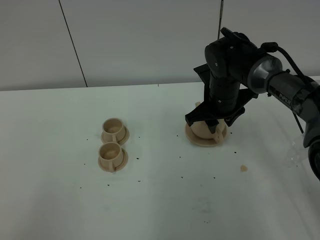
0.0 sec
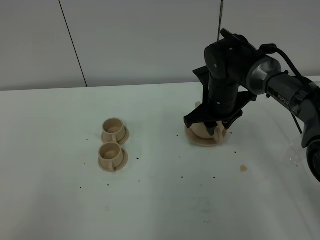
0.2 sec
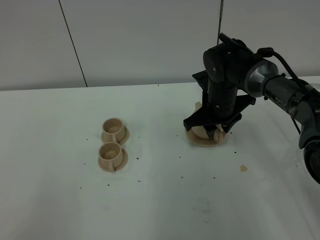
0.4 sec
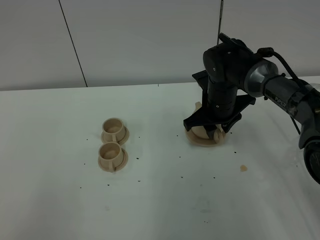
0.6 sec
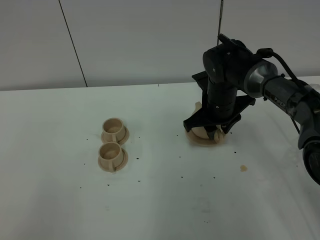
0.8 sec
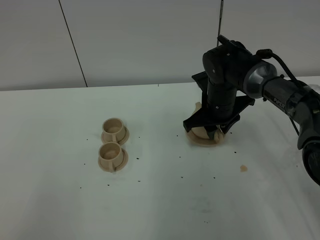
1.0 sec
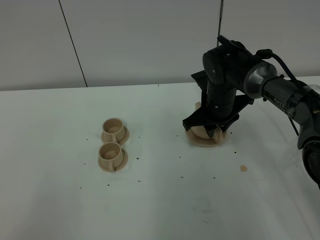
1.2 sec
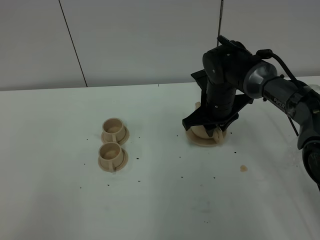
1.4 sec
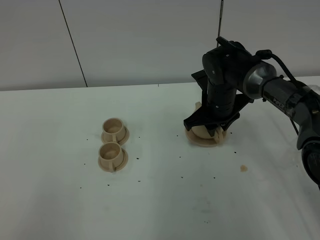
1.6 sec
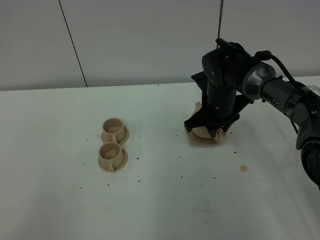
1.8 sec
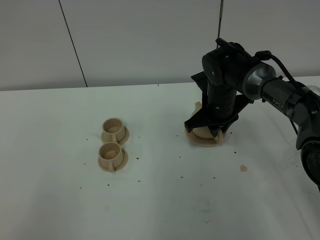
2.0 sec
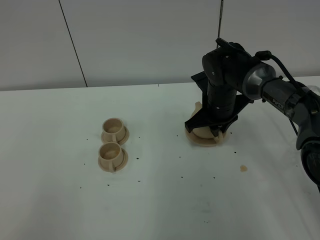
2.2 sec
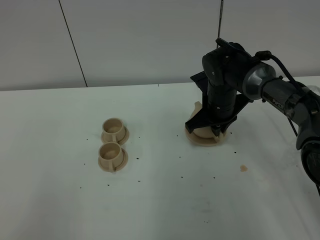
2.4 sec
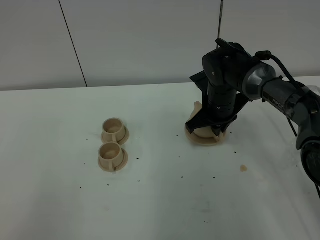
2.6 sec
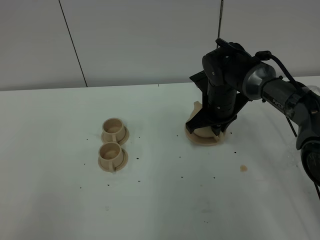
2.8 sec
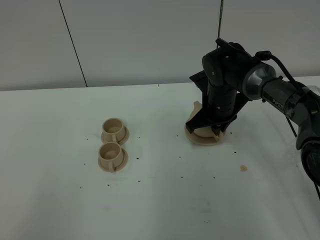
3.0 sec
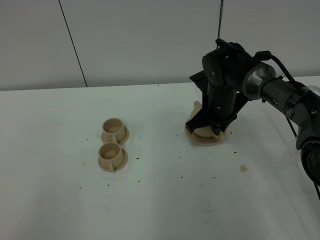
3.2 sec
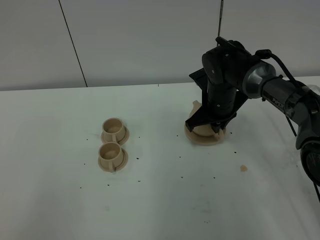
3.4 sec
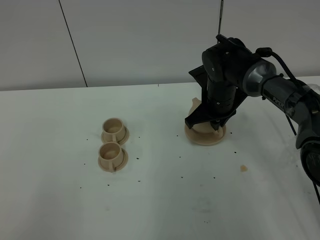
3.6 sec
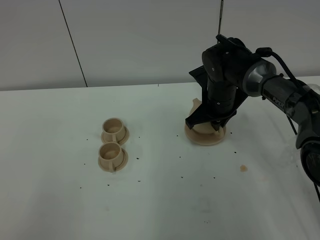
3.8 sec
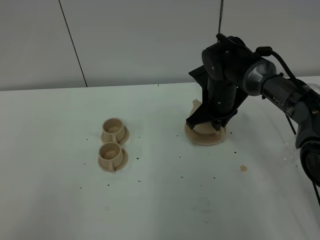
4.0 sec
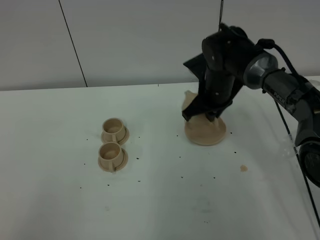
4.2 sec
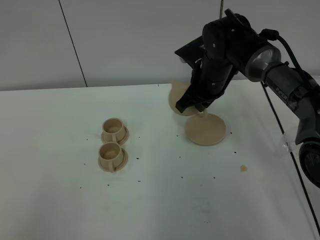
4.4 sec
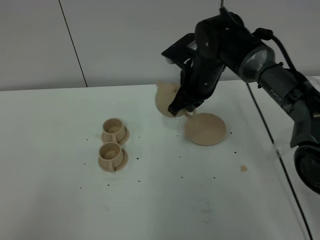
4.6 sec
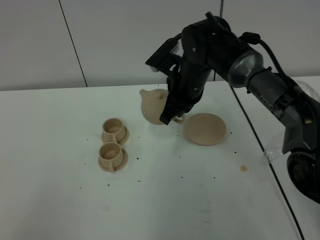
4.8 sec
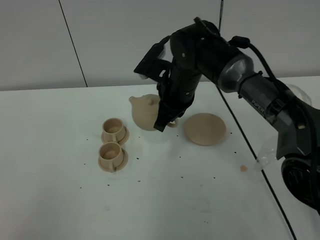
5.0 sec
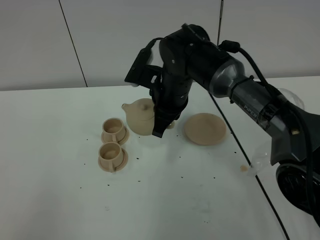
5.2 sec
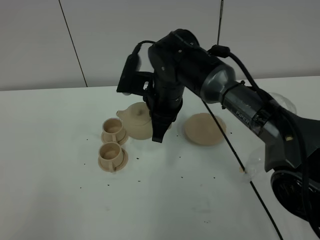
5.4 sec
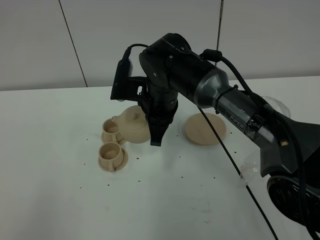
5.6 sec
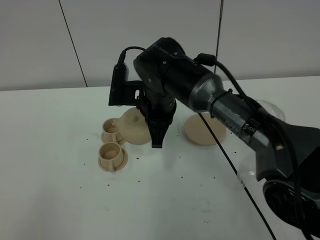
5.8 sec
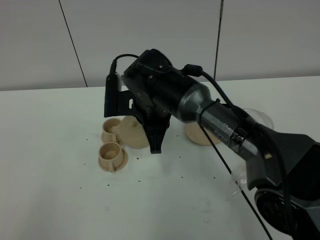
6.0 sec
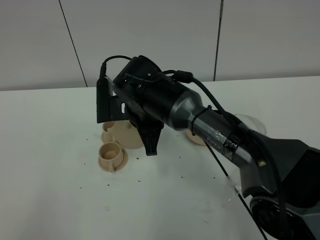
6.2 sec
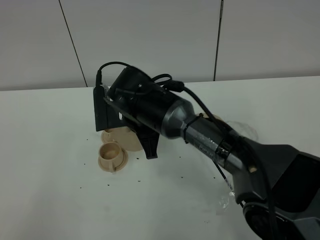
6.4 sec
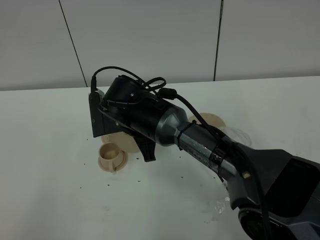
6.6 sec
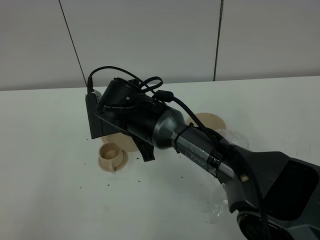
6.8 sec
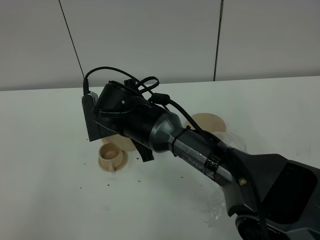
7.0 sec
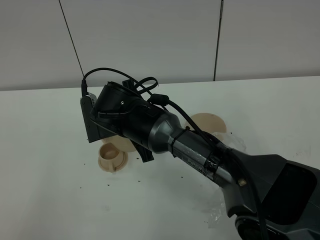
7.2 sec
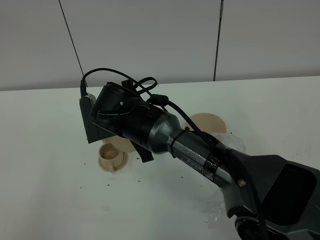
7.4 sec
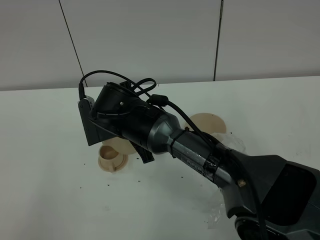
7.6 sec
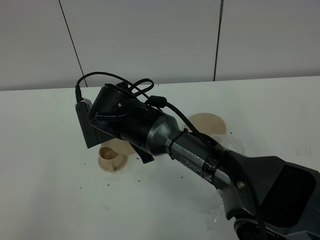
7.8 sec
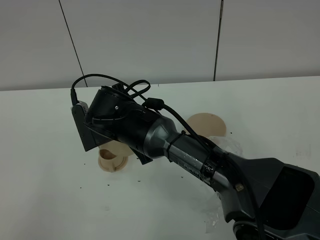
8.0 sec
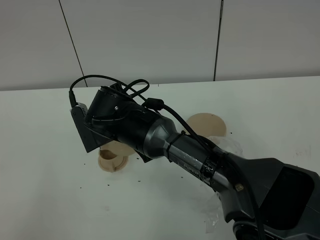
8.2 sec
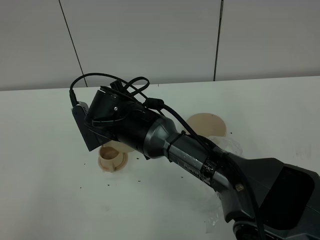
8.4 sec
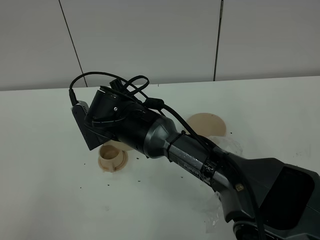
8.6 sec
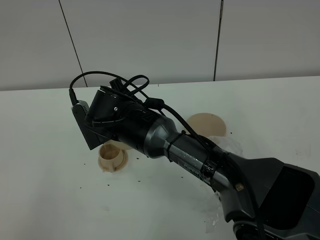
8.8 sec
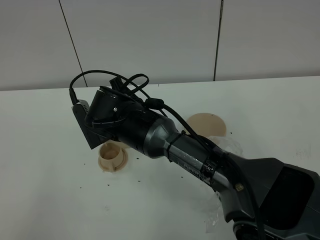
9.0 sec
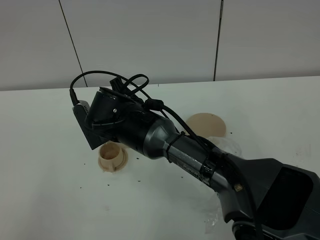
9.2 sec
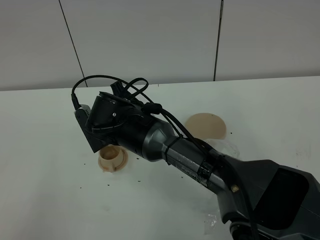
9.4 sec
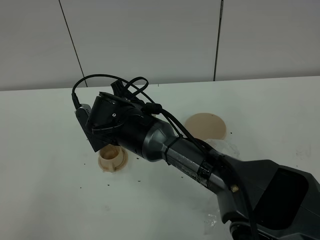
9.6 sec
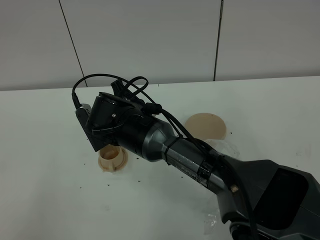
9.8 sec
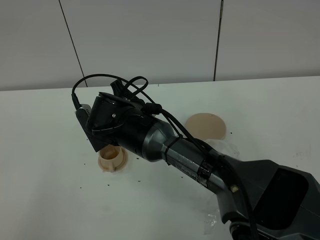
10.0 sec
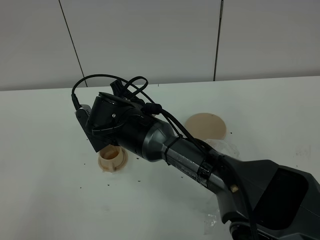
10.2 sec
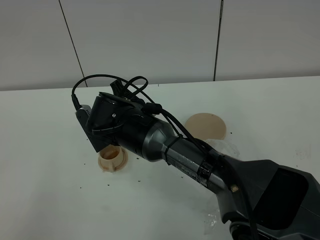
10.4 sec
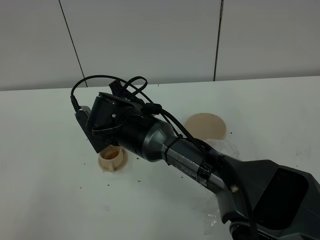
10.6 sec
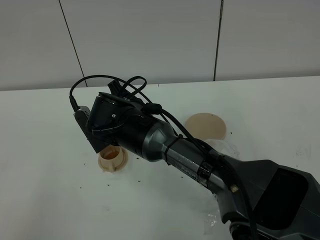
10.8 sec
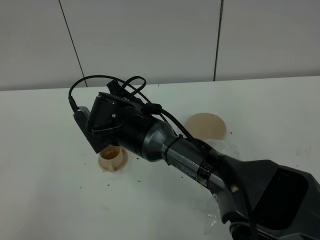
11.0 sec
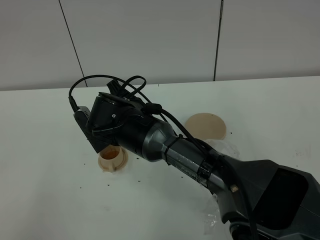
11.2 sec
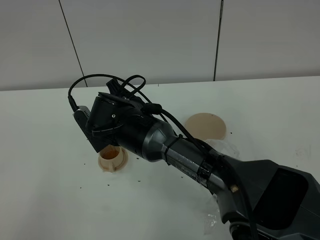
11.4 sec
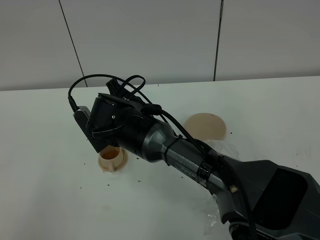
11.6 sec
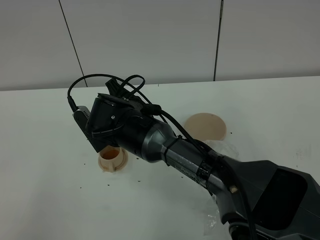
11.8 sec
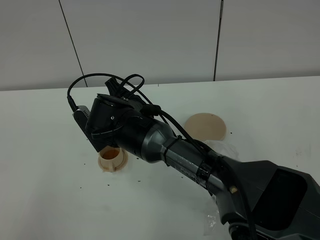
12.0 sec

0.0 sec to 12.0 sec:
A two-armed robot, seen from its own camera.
Task of the whole recording: grasp the brown teapot and pour the tea into the two brown teacups one by one, put the brown teapot back in its original place.
Step, 0.0 sec to 3.6 sec: Pick up the teapot with the right gripper.
0.0 sec to 1.6 sec: There are only small adjustments of the grippers.
1.6 sec to 3.0 sec: The right gripper closes.
3.0 sec to 4.4 sec: The right gripper is displaced upward by about 5 cm.
4.4 sec to 6.0 sec: The right gripper moves to the left and backward, about 15 cm.
7.6 sec to 9.0 sec: The grippers stay close to where they were, moving slightly.
9.0 sec to 10.4 sec: Both grippers stay put.
10.4 sec to 12.0 sec: The grippers make only small movements.

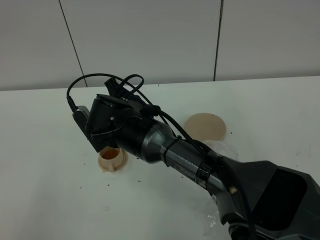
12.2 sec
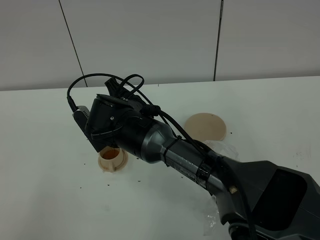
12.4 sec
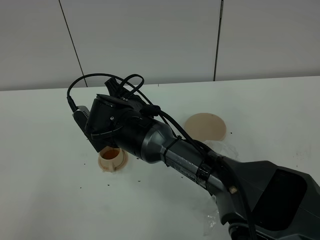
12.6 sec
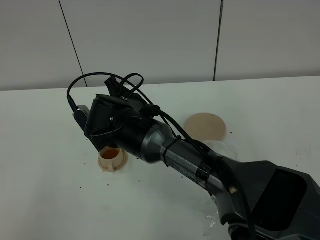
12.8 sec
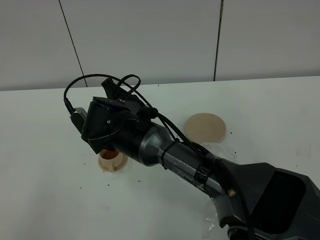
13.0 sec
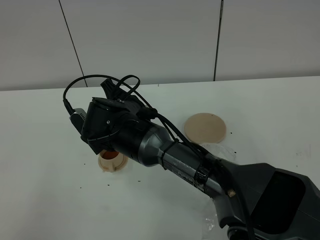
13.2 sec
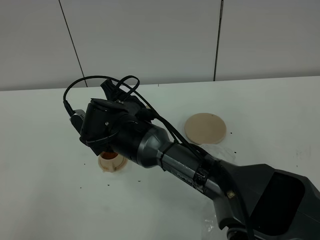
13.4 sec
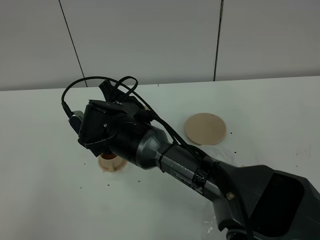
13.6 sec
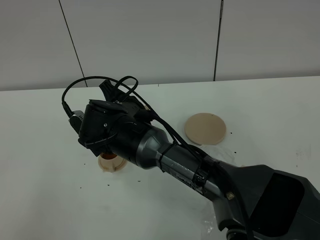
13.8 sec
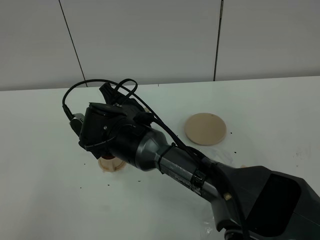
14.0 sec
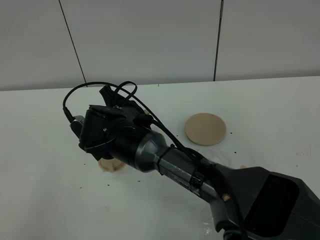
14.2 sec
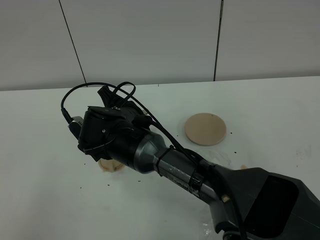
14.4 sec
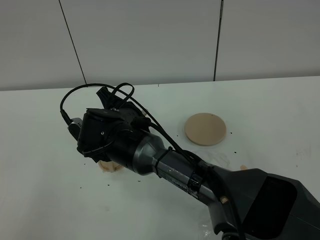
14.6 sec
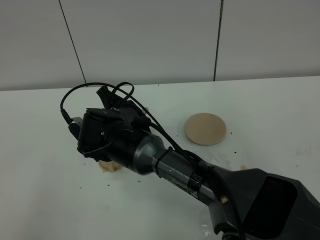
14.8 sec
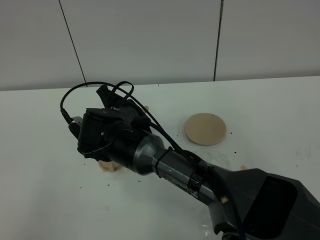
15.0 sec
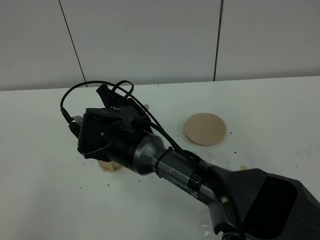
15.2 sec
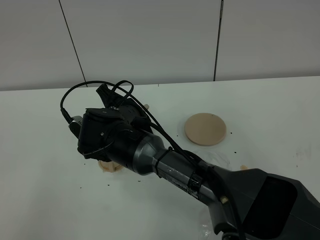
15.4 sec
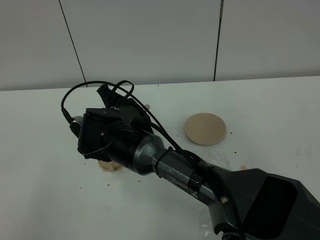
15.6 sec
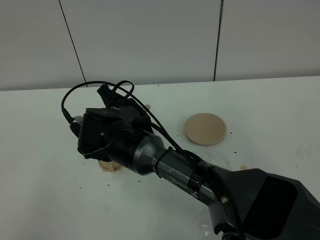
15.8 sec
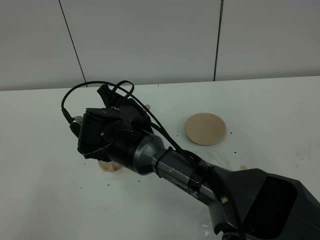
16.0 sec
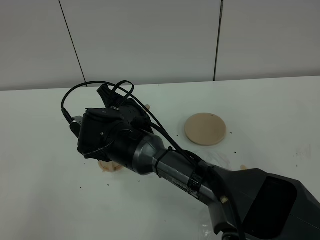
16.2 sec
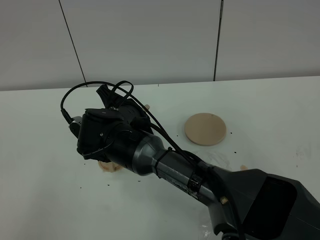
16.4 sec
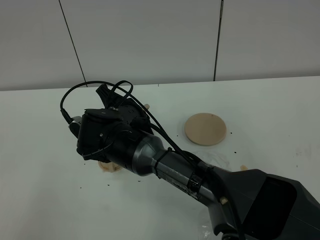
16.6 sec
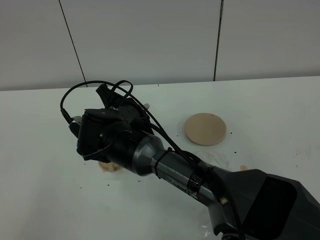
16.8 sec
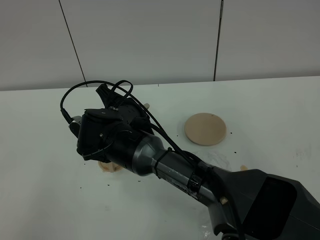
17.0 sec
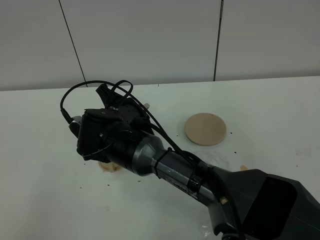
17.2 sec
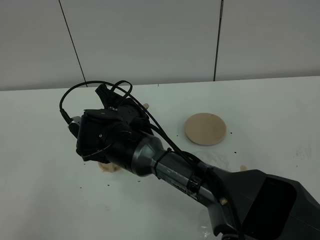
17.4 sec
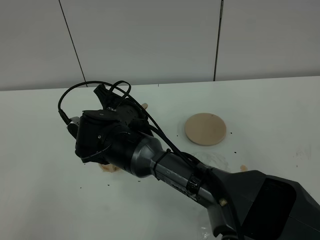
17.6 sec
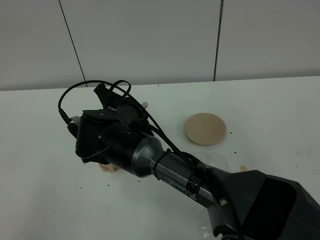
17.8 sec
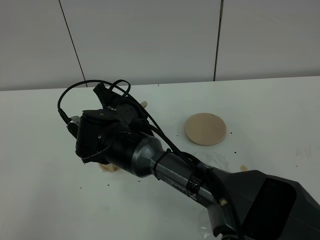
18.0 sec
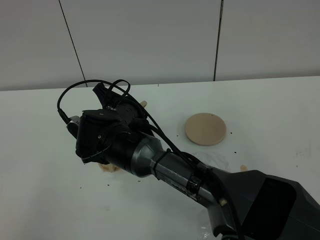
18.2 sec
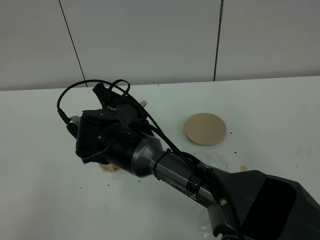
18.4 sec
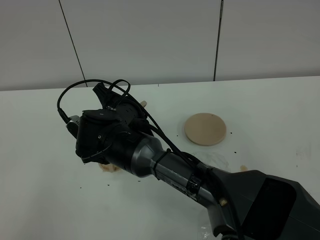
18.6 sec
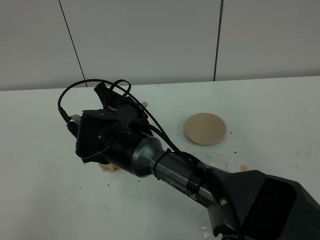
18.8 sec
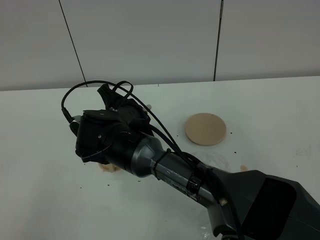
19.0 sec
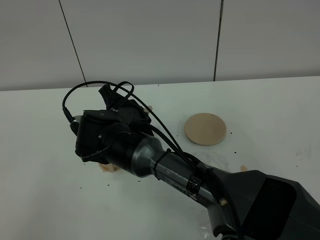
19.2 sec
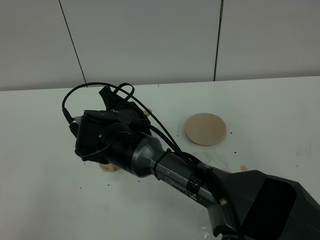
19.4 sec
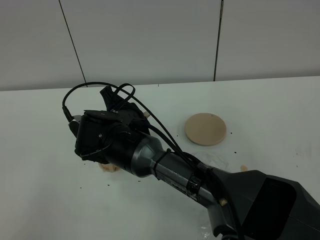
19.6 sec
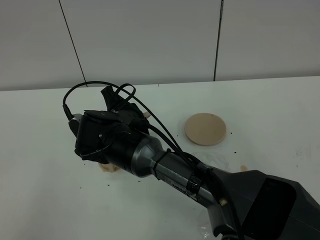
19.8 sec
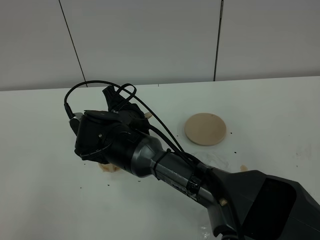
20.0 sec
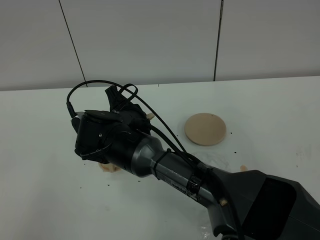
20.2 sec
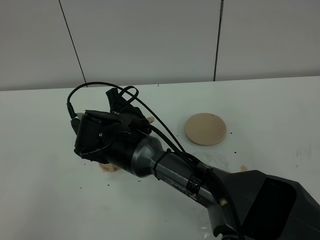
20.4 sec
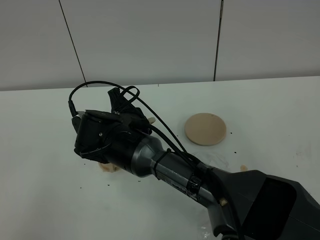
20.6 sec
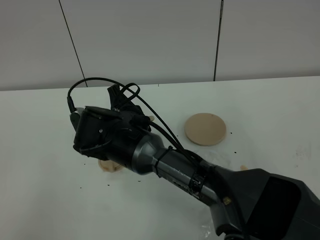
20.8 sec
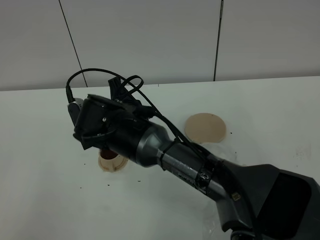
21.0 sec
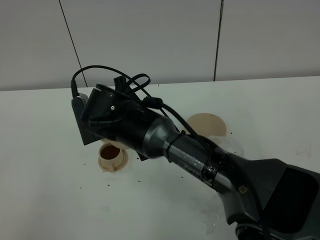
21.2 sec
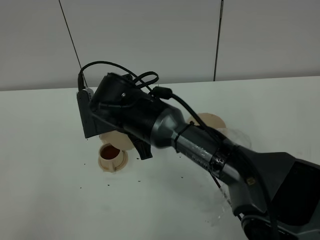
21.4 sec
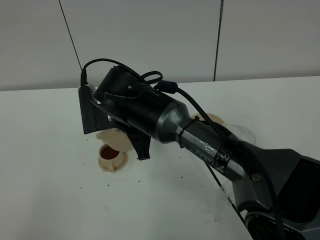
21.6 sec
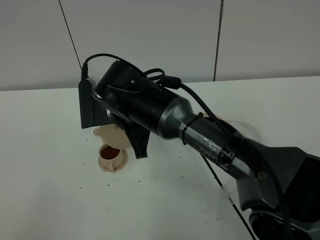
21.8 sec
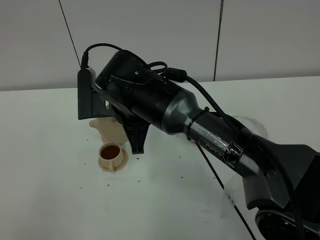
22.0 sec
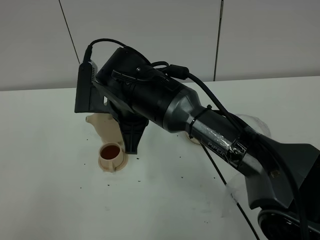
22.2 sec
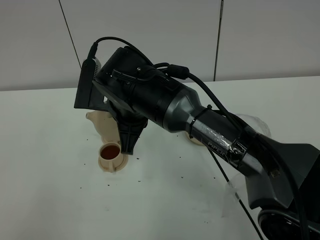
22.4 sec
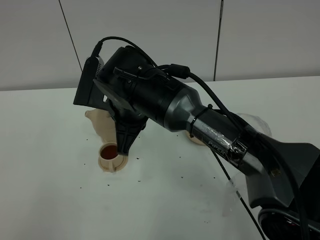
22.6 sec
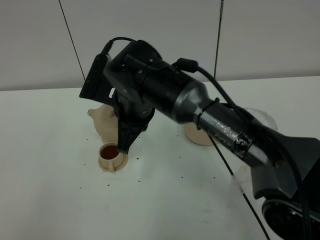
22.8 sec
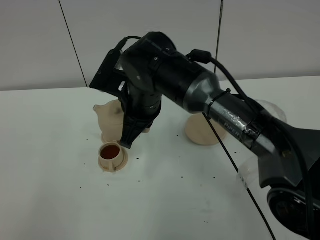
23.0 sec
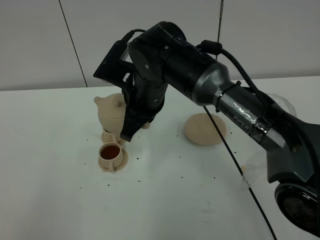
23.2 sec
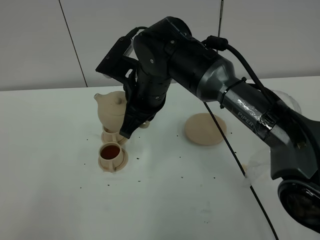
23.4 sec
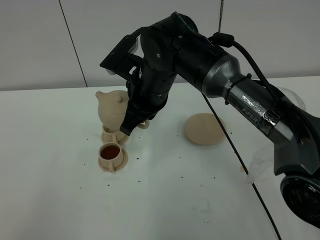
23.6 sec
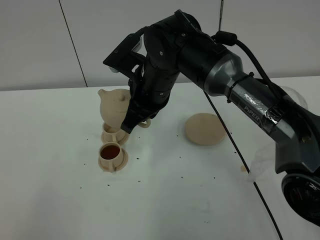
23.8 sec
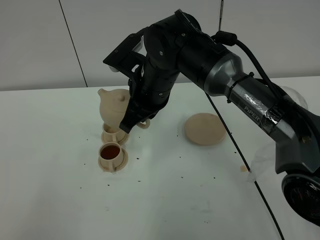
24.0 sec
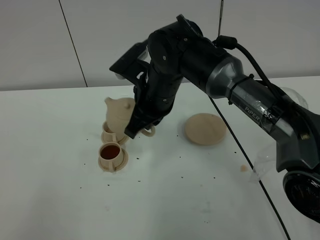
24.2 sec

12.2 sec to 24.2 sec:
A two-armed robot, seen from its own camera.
Task of the whole recording: grasp the brown teapot and pour the tea into the two brown teacups one by one, put the brown teapot back in its original place.
12.2 sec to 13.8 sec: Both grippers stay about where they are.
13.8 sec to 15.2 sec: The grippers move only a little.
15.2 sec to 18.2 sec: Both grippers stay about where they are.
18.2 sec to 19.8 sec: There are only small adjustments of the grippers.
19.8 sec to 21.2 sec: The grippers move only a little.
22.6 sec to 24.2 sec: The right gripper changes place by roughly 5 cm.
